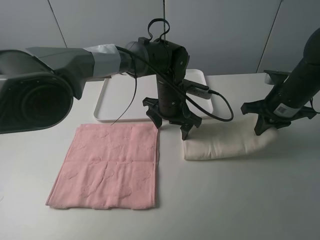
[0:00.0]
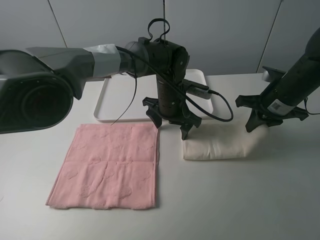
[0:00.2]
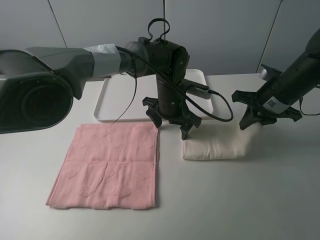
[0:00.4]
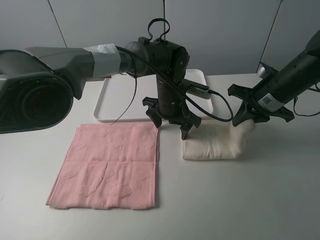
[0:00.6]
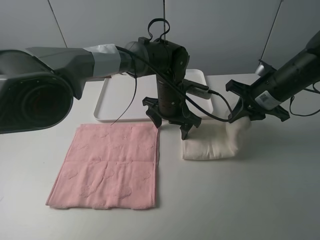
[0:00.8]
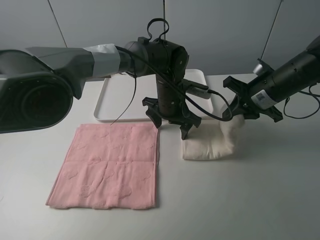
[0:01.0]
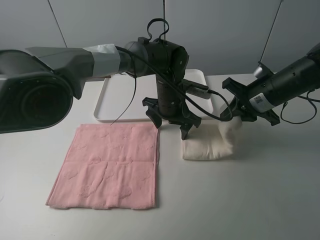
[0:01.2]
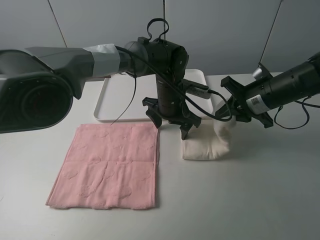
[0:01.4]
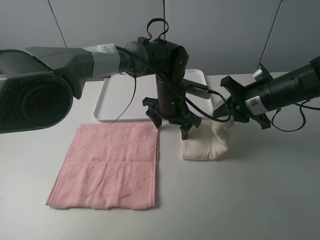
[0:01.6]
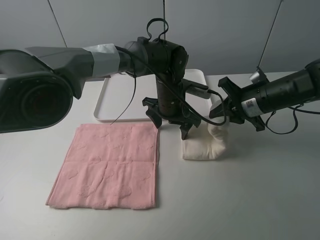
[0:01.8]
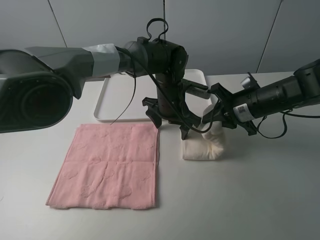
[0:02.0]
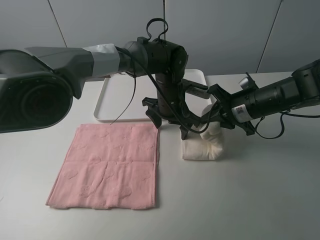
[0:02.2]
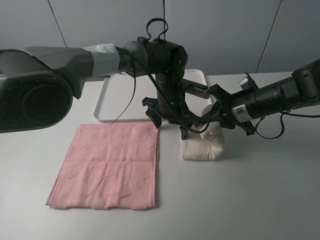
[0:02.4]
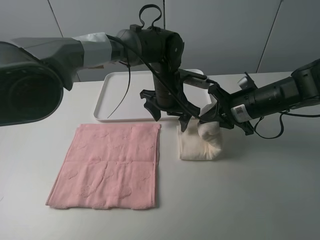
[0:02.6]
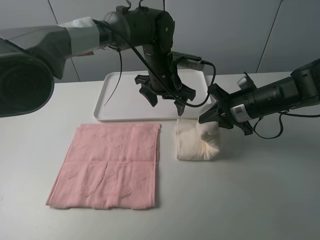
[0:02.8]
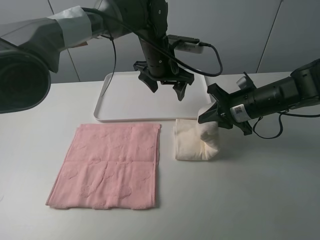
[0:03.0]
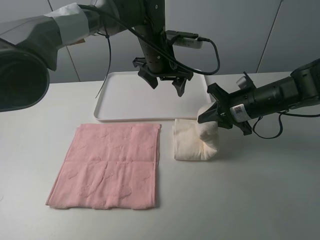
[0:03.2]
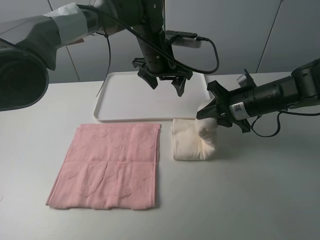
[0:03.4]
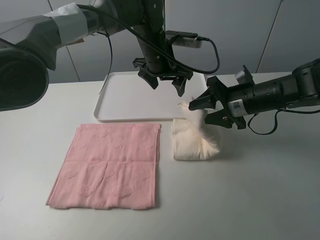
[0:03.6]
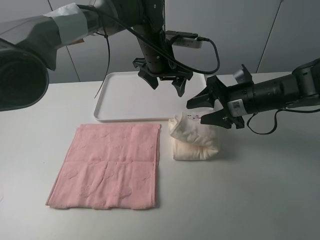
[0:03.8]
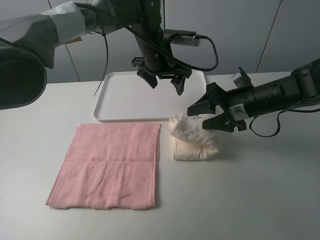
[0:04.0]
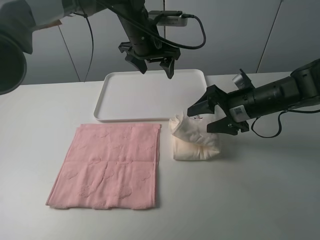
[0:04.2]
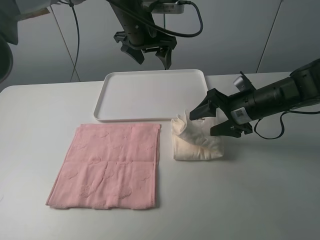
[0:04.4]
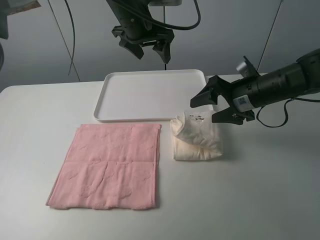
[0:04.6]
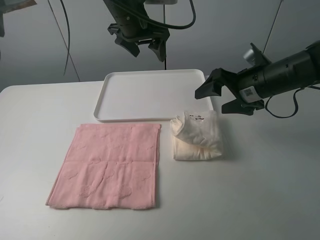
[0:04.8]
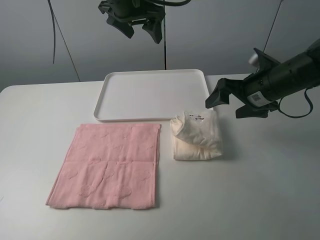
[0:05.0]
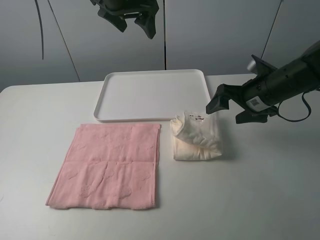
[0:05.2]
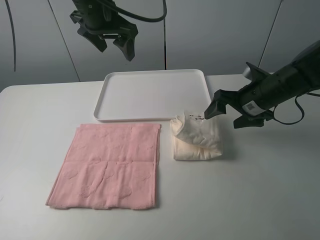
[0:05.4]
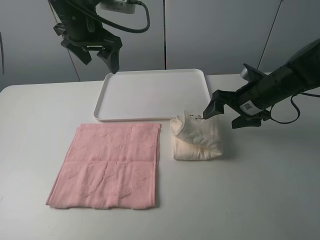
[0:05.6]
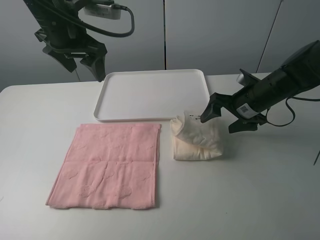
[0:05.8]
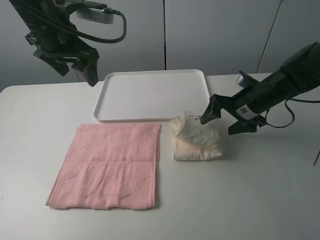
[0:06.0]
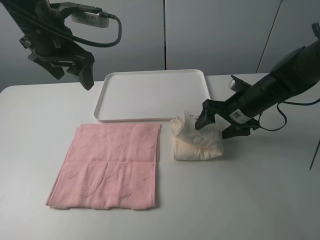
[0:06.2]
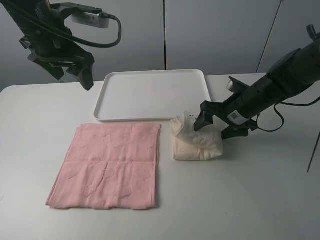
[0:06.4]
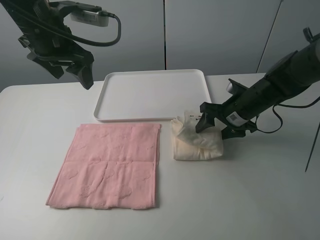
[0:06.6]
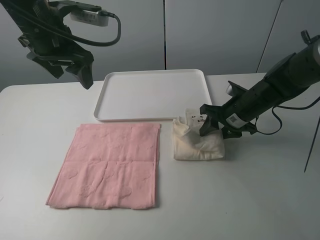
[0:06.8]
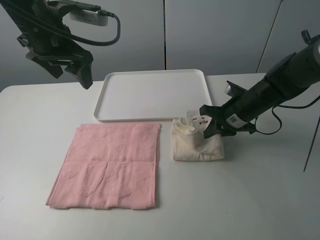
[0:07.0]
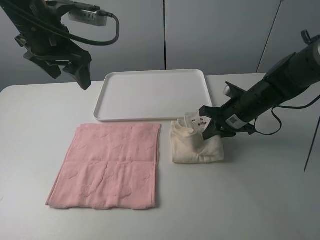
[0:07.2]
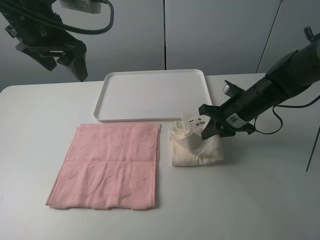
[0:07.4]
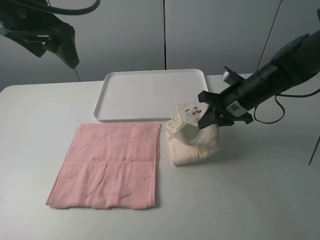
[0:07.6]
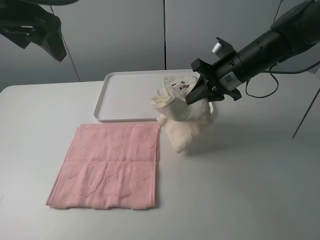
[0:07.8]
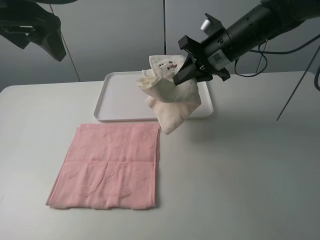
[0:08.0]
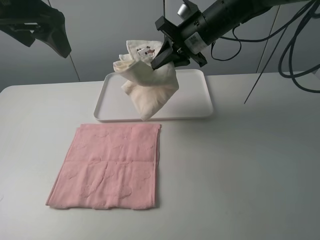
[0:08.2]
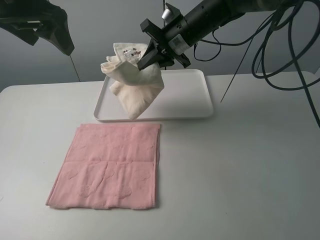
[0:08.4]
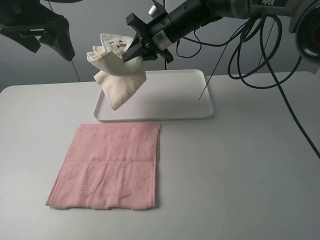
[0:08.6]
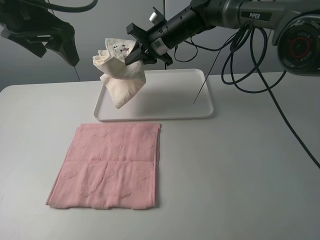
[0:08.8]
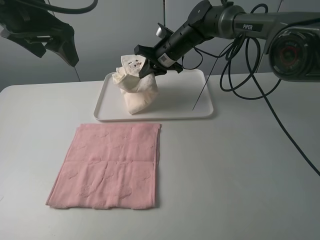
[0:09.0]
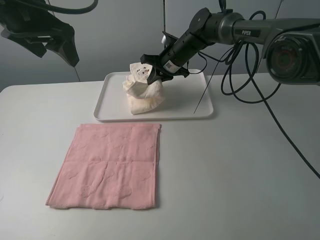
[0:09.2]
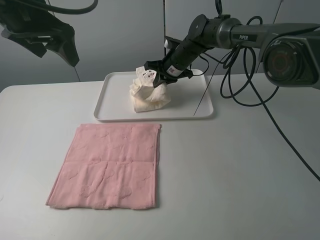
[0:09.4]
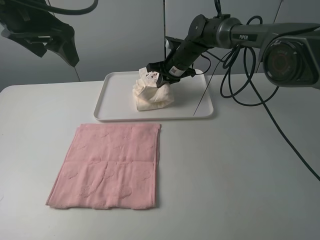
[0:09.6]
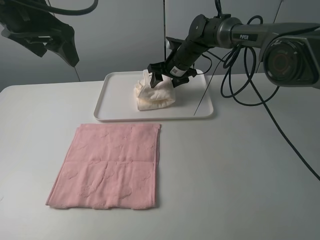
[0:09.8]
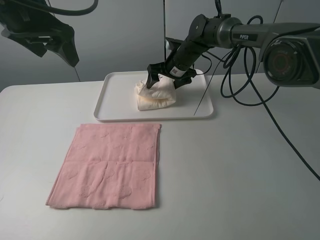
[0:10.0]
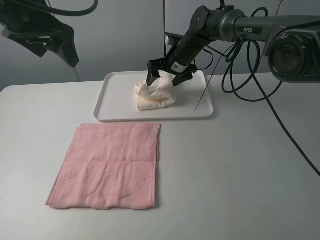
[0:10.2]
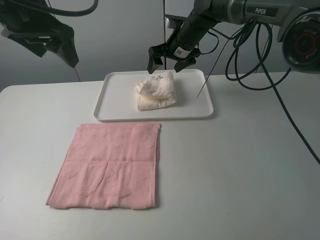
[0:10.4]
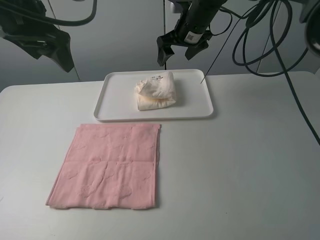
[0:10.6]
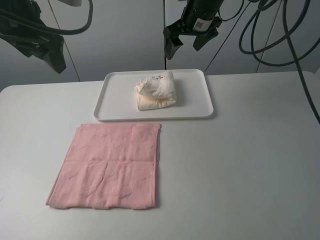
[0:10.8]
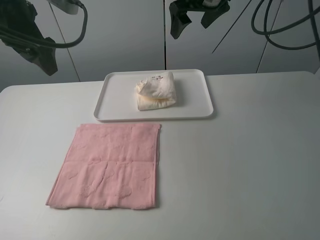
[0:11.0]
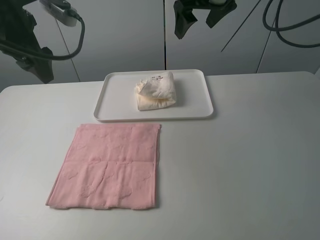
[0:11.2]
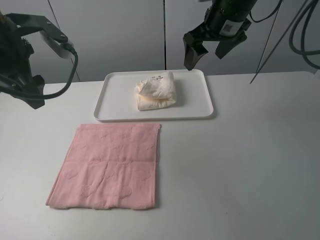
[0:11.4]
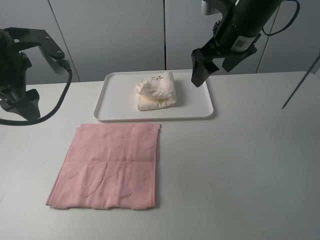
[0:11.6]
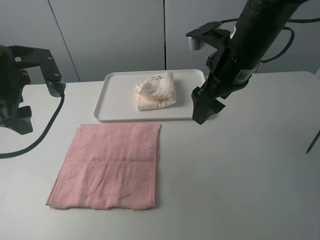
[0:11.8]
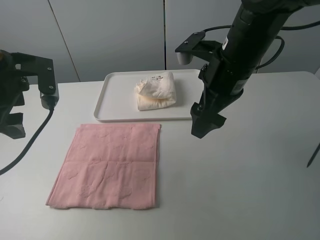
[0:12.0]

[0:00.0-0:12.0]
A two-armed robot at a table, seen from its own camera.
Task of the whole recording: fold one of the towels by two grippers and place it on the tray,then fold another towel by two grippers and place it on the folded towel.
Step, 0:00.0 to 0:04.0: Fold the white towel from right to left with right gripper.
Step, 0:04.2 to 0:07.0: Grasp the white towel with the right gripper.
Step, 0:07.2 to 0:10.0: Move the white towel to the plate with the right gripper.
0:01.6 to 0:03.0: The left gripper moves upward, roughly 10 cm.
0:03.0 to 0:04.4: The right gripper opens. The left gripper is displaced upward by roughly 5 cm.
0:04.4 to 0:06.0: The left gripper shifts some 15 cm to the left and backward.
0:06.0 to 0:07.6: The left gripper moves upward, roughly 5 cm. Meanwhile the right gripper closes.
0:07.6 to 0:09.0: The right gripper is displaced forward and to the left by approximately 20 cm.
0:09.0 to 0:10.4: The right gripper opens its fingers.
0:10.4 to 0:12.0: The right gripper travels backward by approximately 20 cm. Meanwhile the left gripper shifts some 10 cm downward and backward.

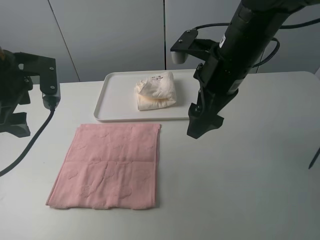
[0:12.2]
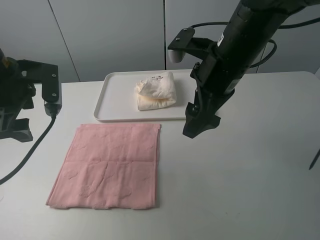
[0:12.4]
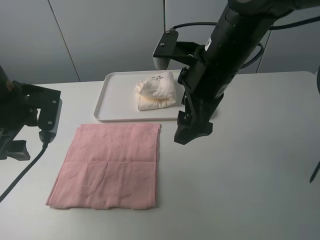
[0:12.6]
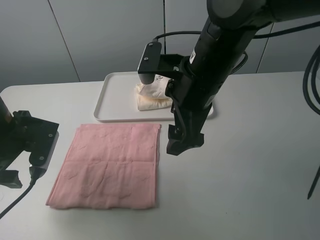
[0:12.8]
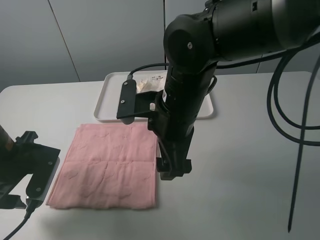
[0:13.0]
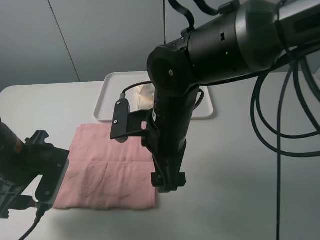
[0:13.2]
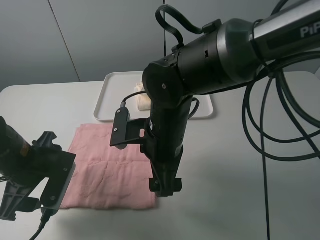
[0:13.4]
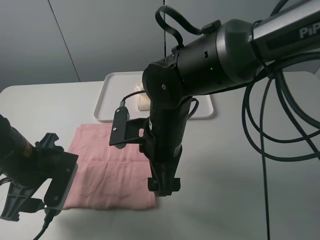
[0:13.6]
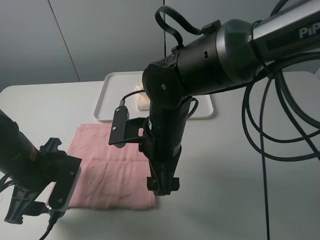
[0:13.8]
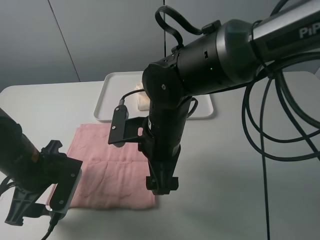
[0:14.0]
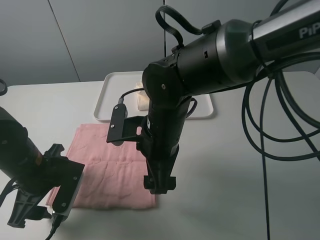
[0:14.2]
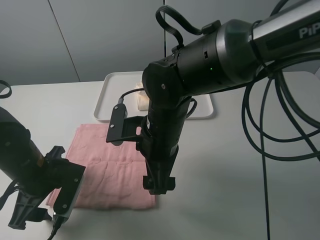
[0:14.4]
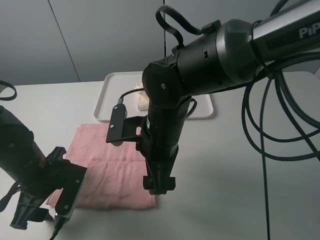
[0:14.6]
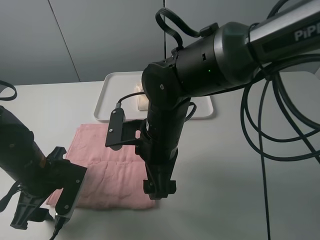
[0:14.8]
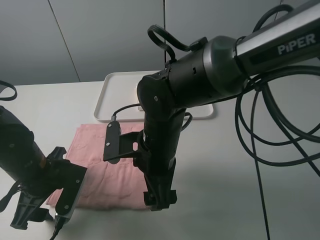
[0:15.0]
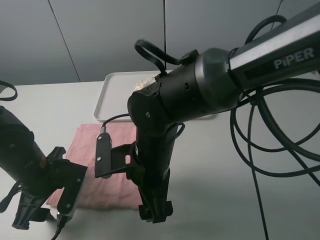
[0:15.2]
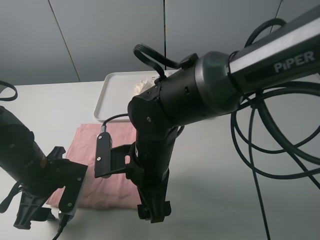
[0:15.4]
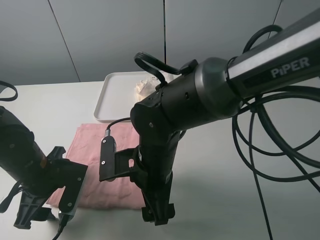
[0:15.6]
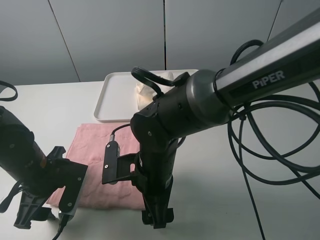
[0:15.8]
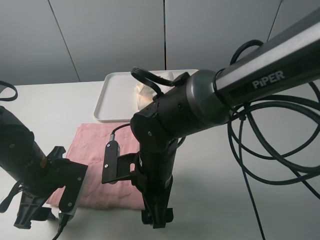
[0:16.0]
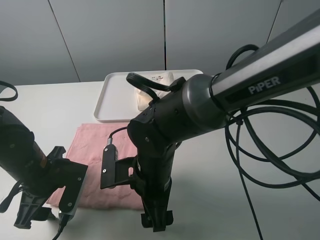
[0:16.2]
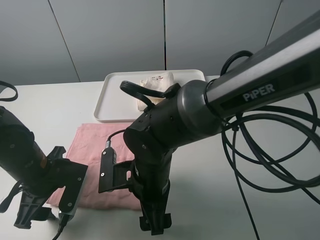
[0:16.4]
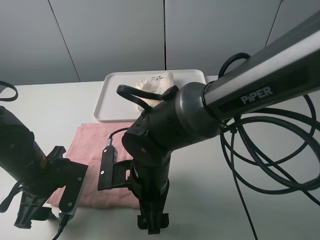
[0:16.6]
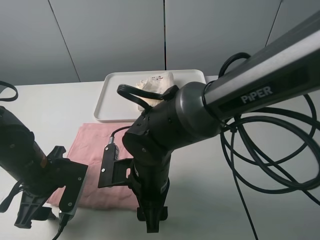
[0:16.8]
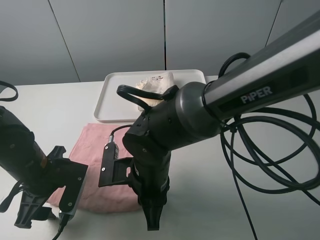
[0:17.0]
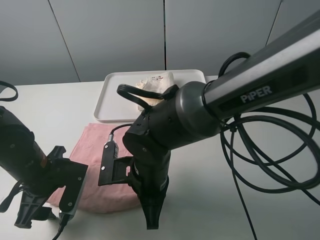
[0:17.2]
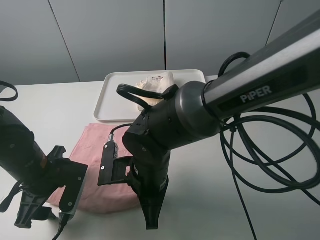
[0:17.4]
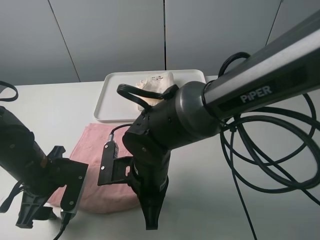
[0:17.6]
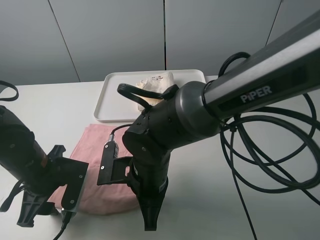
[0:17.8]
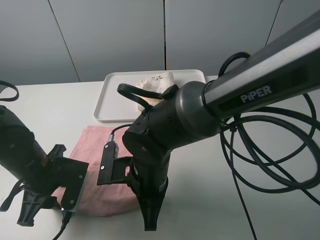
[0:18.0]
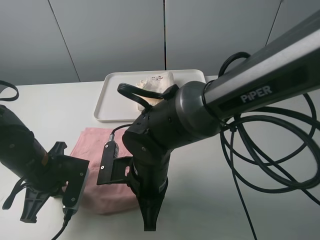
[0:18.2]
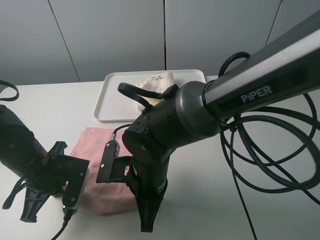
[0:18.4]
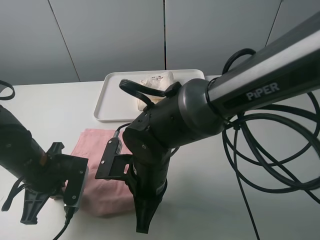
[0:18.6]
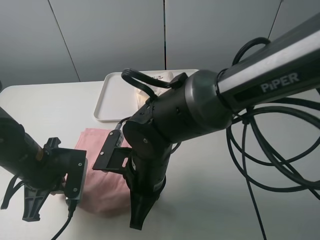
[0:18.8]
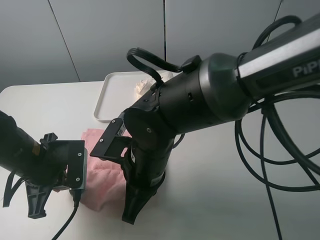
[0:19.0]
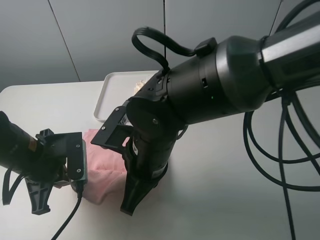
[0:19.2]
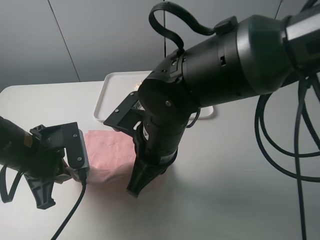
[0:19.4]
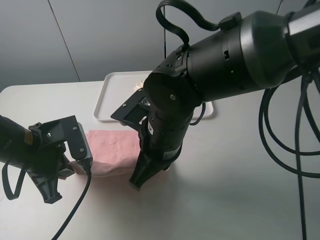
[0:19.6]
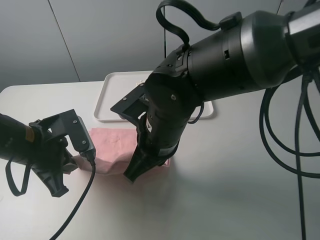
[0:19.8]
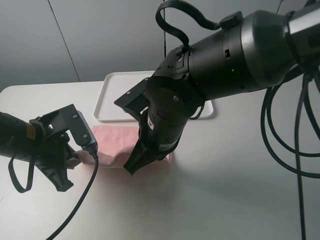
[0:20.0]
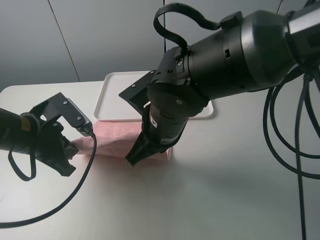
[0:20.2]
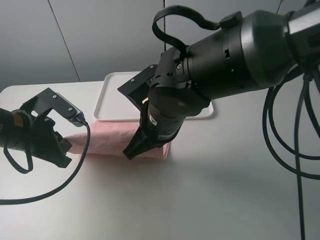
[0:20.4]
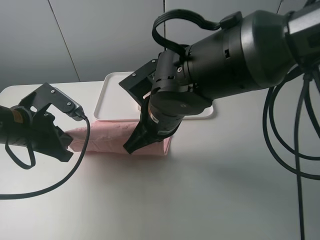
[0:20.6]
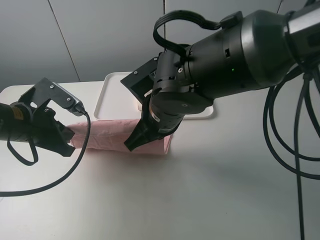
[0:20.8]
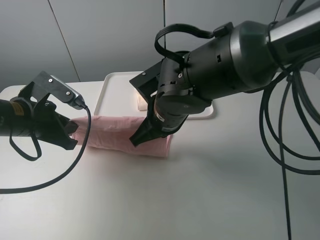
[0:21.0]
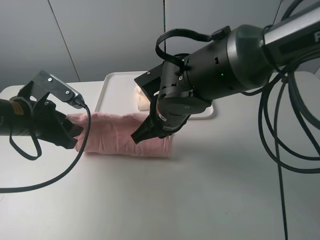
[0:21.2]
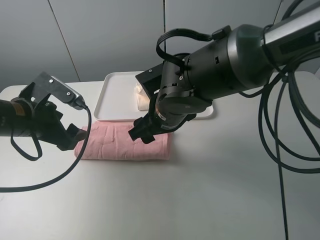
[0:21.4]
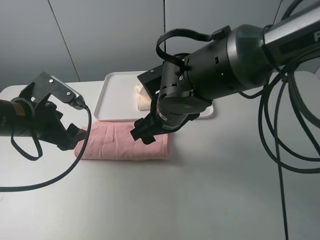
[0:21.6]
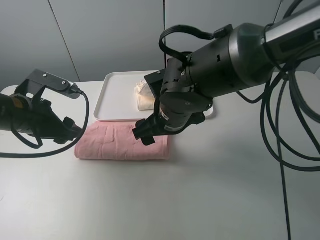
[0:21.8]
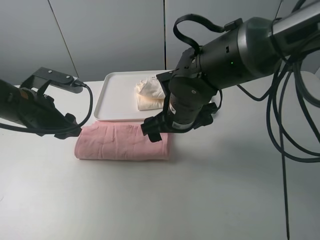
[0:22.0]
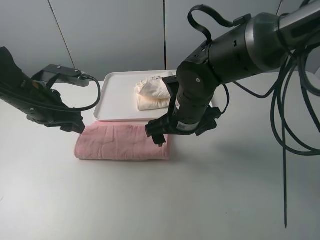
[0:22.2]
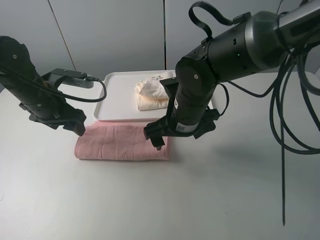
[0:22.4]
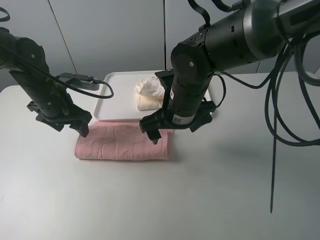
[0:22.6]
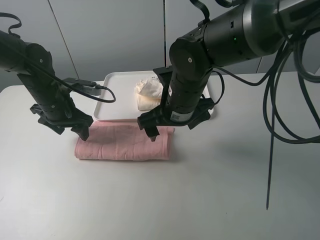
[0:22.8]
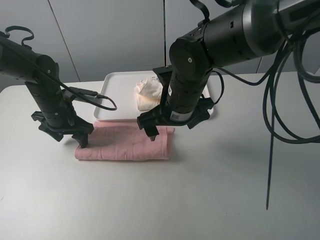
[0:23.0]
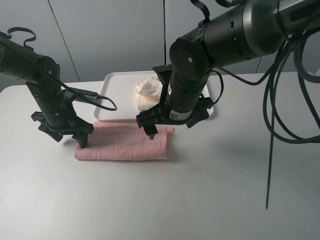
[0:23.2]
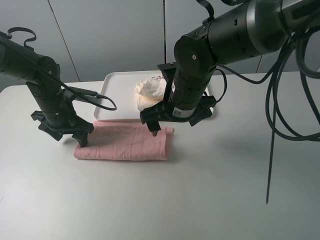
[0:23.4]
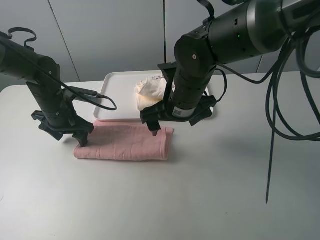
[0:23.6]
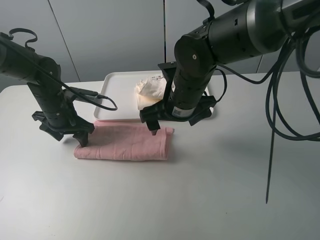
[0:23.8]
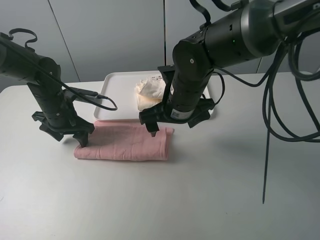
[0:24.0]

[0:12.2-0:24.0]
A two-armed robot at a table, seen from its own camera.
Task of the whole recording: fold one of the towels by two grippers and place it on the tray,then fold another towel by two grippers and place it on the folded towel.
Step, 0:12.2 to 0:18.0: Grasp the pink towel with the left gripper.
Step, 0:18.4 to 0:21.4: Fold the pink towel upwards with the left gripper.
Step, 0:21.8 to 0:23.2: Press the pink towel with the left gripper.
0:12.2 to 0:13.6: The right gripper shifts about 15 cm to the left, downward and backward; the left gripper moves downward and backward, roughly 15 cm.
0:16.6 to 0:18.2: The right gripper closes its fingers, while the left gripper closes up.
0:18.2 to 0:19.6: Both grippers travel together upward, roughly 5 cm.
0:19.6 to 0:21.0: The right gripper heads forward, covering about 5 cm. The left gripper ends up about 5 cm from where it was.
0:21.0 to 0:22.6: The left gripper travels forward by about 10 cm, and opens its fingers, while the right gripper opens.
0:22.6 to 0:24.0: There are only small adjustments of the grippers.
